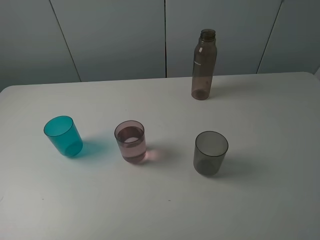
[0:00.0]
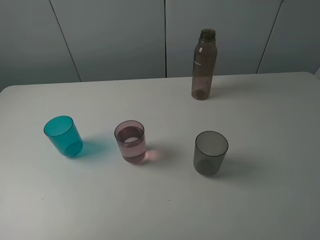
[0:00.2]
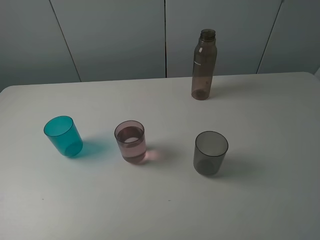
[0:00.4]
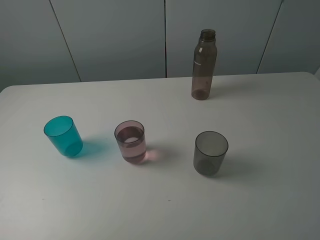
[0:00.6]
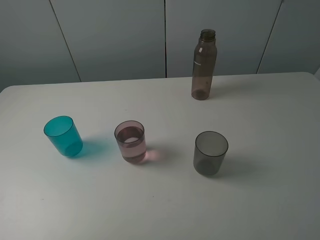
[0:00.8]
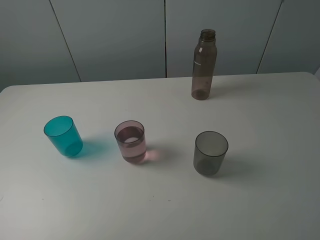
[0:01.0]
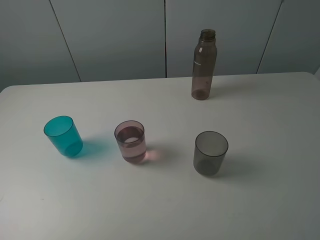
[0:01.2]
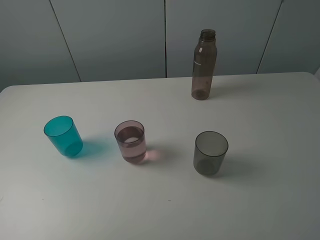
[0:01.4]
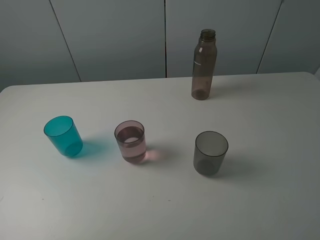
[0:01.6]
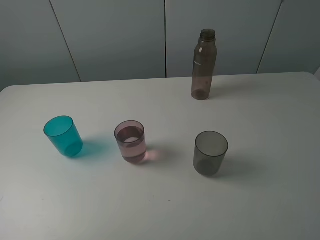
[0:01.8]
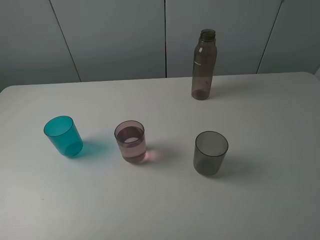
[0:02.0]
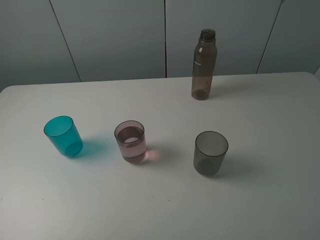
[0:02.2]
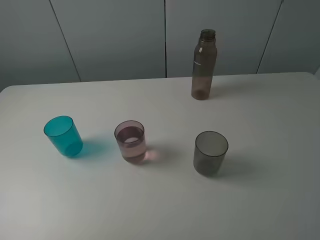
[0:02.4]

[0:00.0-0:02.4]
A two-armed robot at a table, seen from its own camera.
Task of the whole recording: pick up the bottle filled with water and pour water into the middle cup of the three cups.
0:01.2 to 0:02.4: The two grippers keep their place.

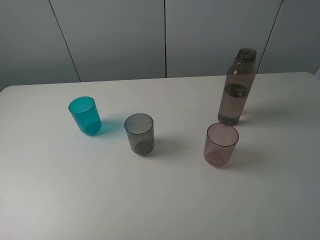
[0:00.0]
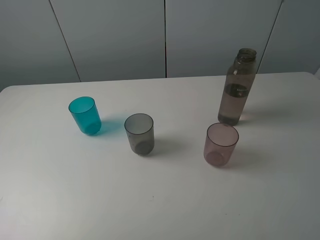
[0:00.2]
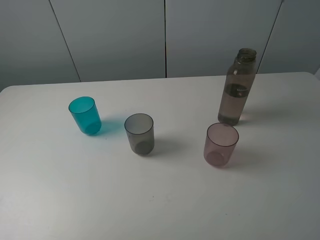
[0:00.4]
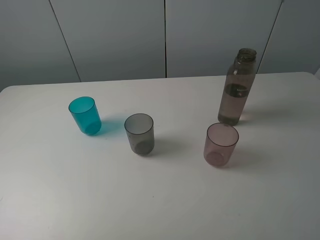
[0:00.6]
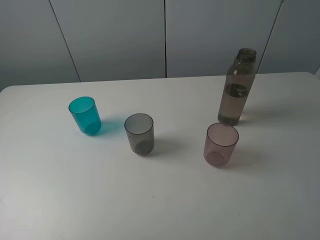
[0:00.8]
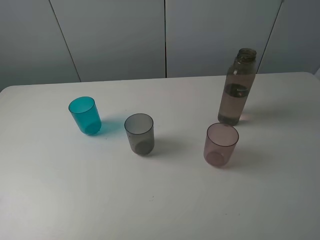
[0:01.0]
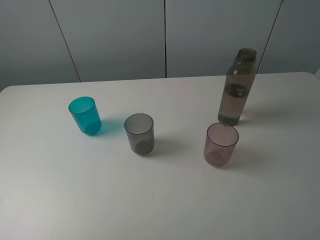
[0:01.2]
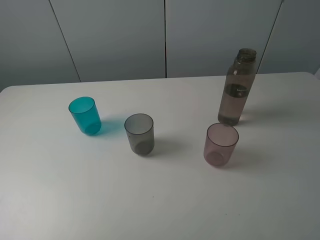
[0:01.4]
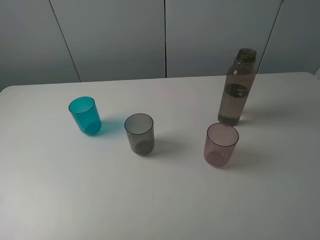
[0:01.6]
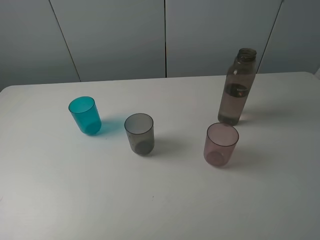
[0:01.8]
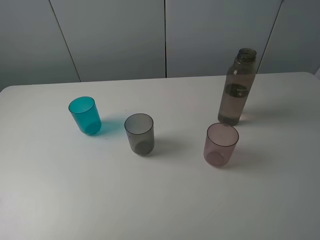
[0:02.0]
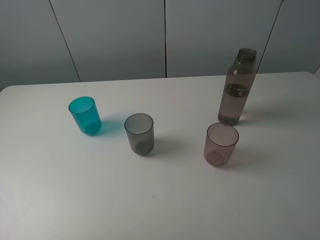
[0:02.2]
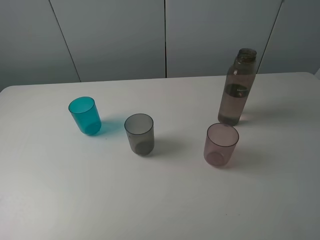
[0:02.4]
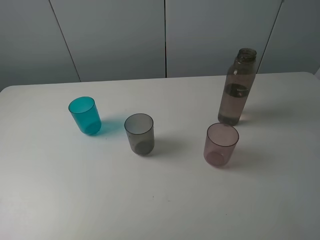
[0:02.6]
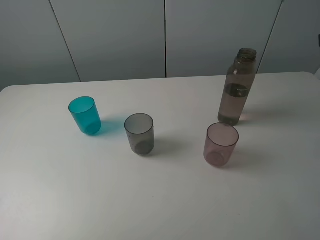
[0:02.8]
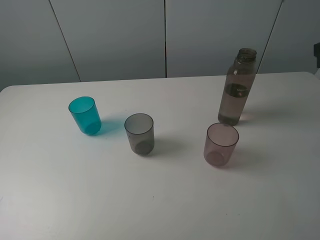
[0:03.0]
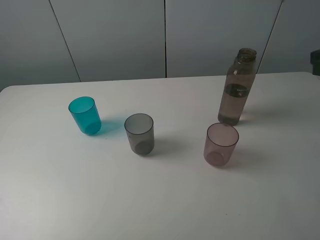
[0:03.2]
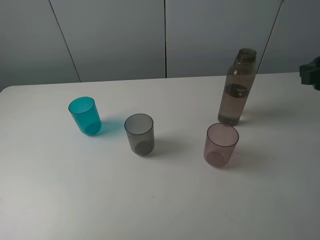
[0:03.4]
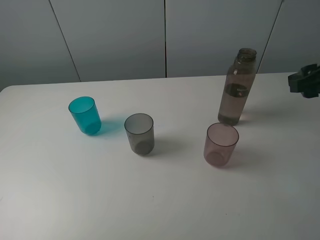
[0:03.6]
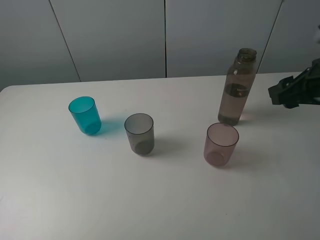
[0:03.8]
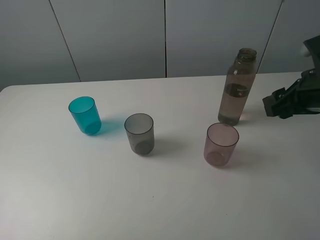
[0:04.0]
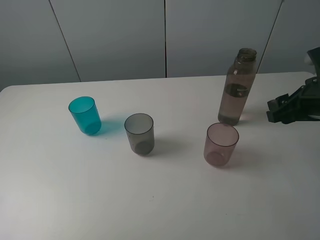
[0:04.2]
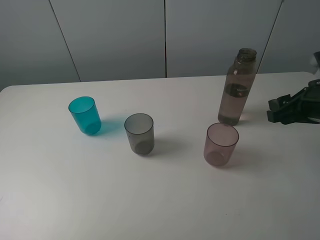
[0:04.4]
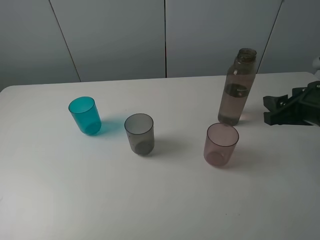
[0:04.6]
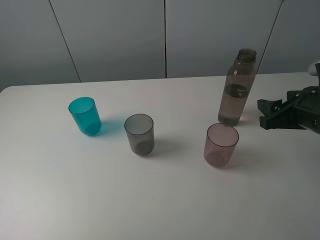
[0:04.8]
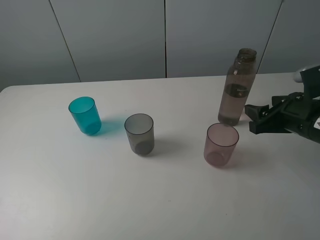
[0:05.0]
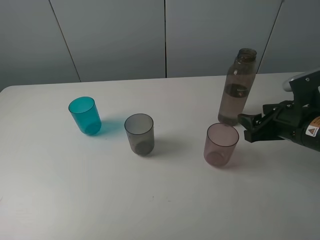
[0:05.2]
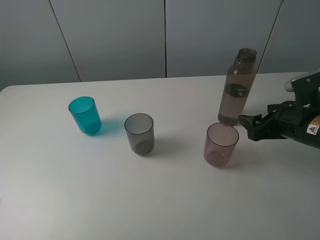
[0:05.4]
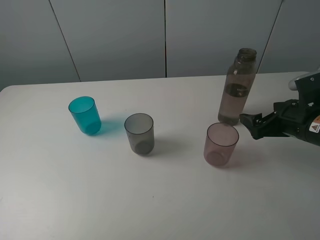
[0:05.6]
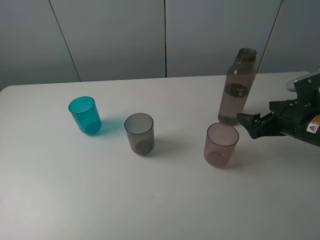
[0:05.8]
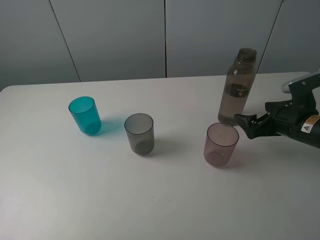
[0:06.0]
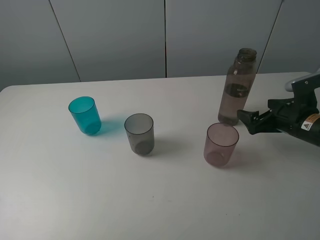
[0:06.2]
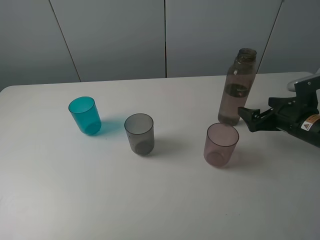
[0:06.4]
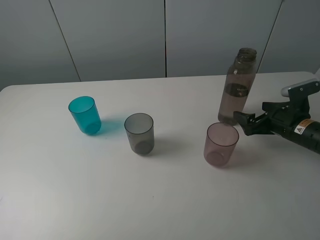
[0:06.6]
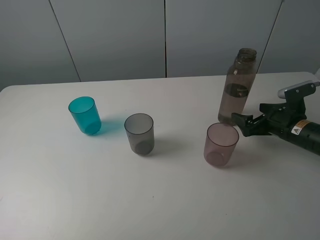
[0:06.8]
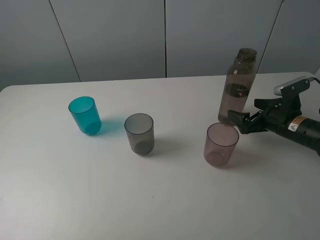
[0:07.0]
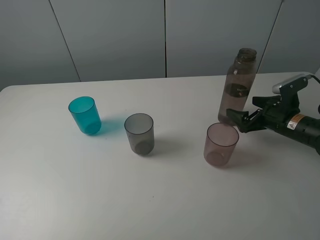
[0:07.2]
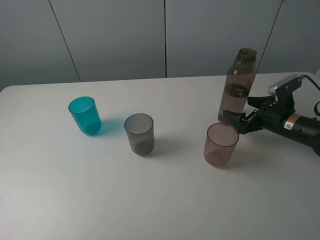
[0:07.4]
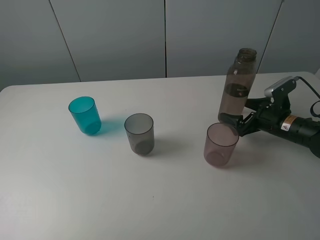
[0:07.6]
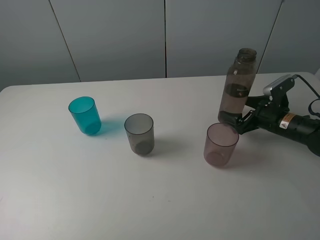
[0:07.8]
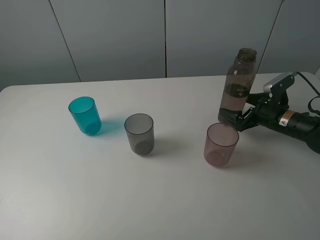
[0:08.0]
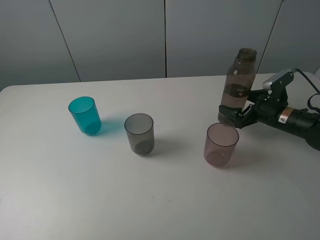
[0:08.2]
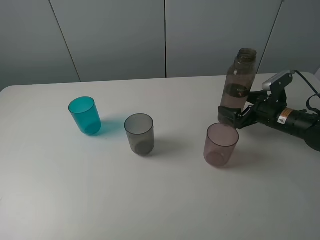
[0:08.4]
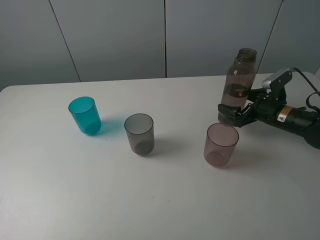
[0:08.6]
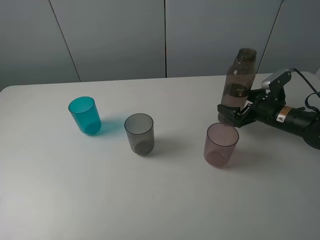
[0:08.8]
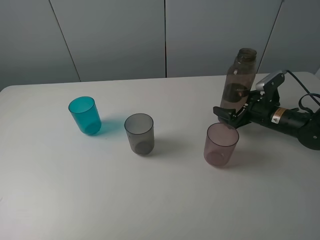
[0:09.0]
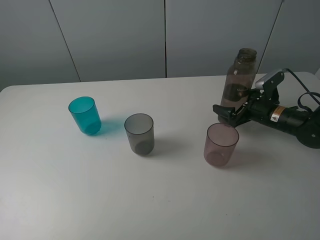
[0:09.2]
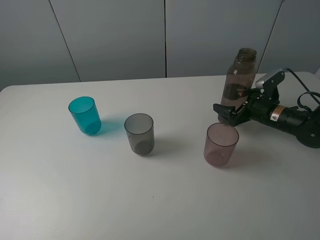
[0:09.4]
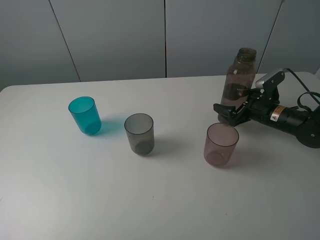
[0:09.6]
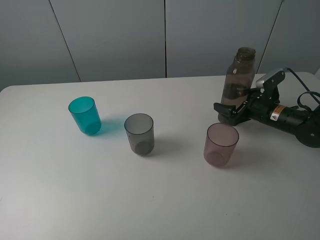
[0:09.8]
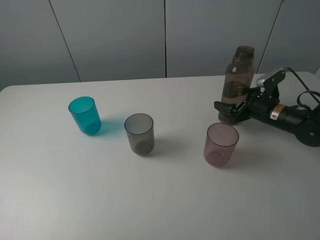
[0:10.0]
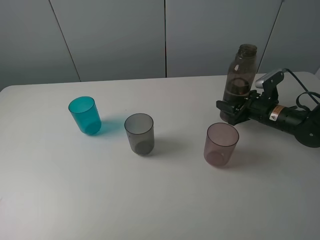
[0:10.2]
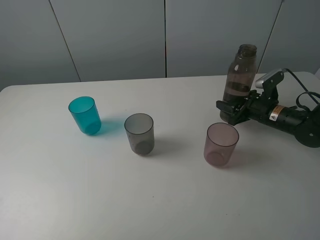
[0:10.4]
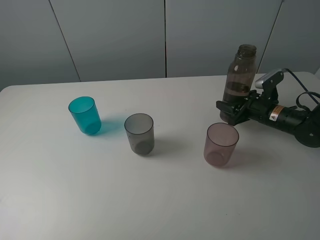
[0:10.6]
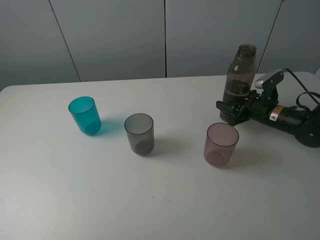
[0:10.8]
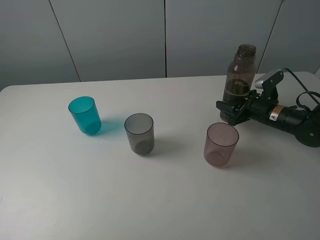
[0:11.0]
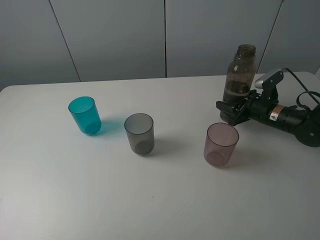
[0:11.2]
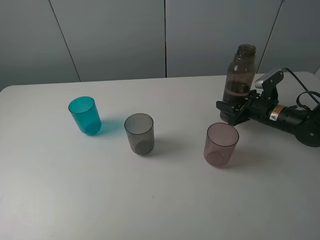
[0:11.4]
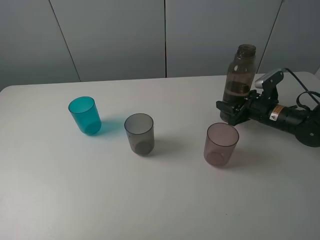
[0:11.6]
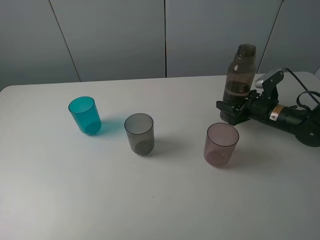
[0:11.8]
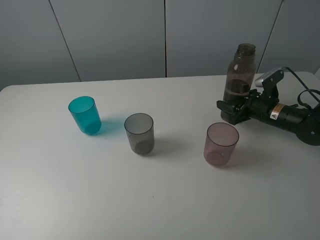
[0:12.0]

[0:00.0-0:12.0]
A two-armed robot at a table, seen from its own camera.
Task of the whole recording: pick up the bottle filled with water and pour water into the middle cup of the three cups.
Step, 0:00.0 to 0:10.2: Grasp the transparent bottle with the right gripper.
0:03.0 to 0:04.4: The right gripper shifts approximately 10 cm downward.
0:04.4 to 0:06.0: The right gripper moves downward, some 10 cm, and opens.
0:06.0 to 0:07.6: The right gripper travels forward and downward by some 10 cm.
0:07.6 to 0:09.0: The grippers stay close to where they were, moving slightly.
0:09.0 to 0:10.4: The right gripper closes its fingers.
0:10.4 to 0:12.0: The two grippers keep their place.

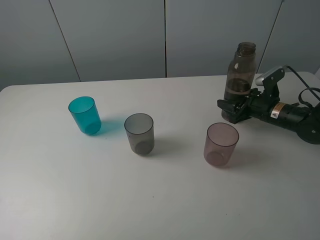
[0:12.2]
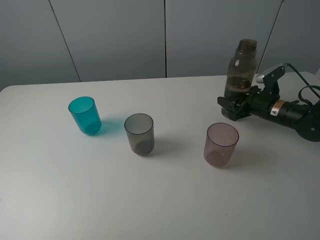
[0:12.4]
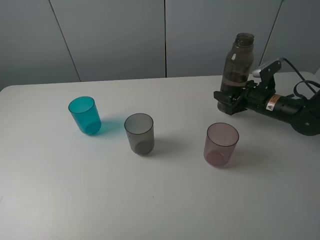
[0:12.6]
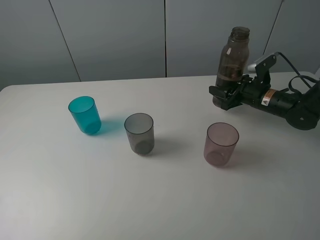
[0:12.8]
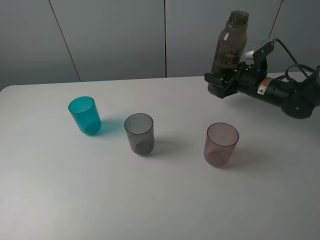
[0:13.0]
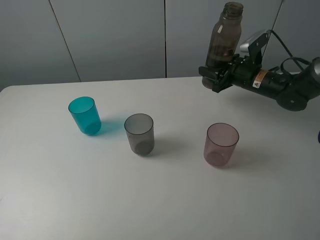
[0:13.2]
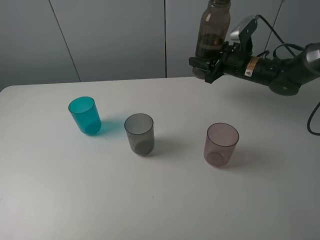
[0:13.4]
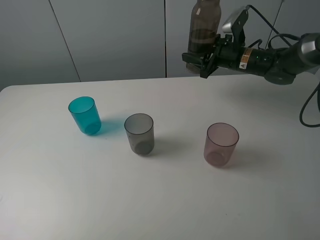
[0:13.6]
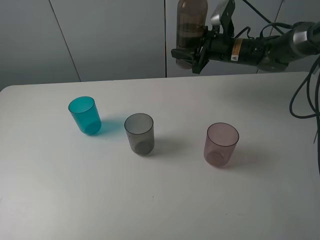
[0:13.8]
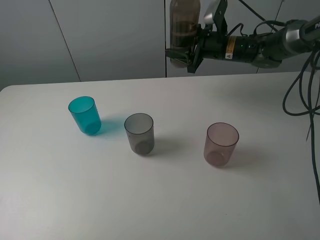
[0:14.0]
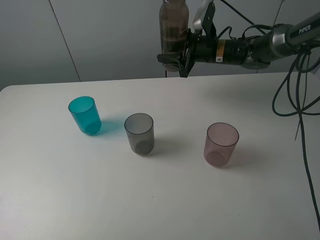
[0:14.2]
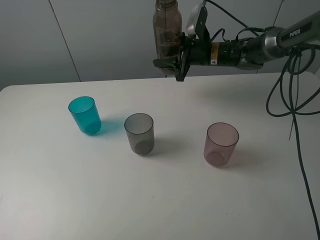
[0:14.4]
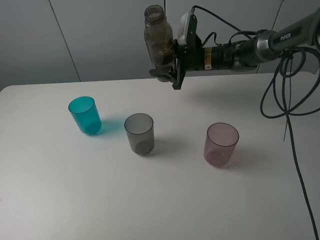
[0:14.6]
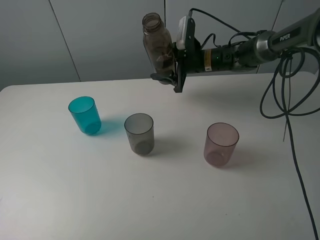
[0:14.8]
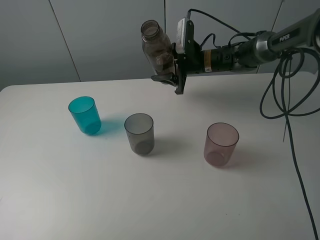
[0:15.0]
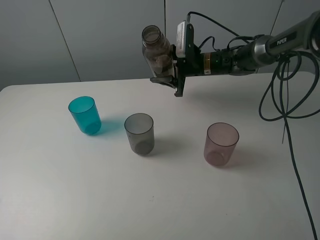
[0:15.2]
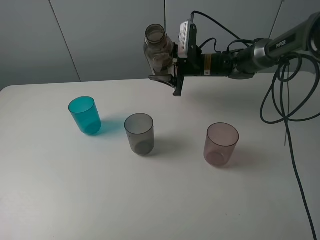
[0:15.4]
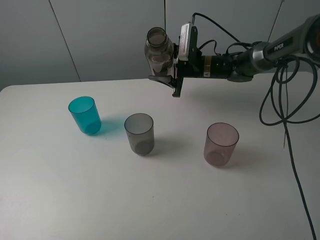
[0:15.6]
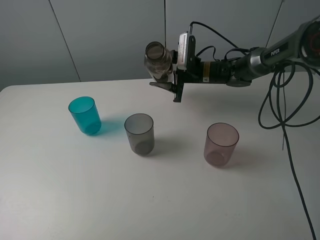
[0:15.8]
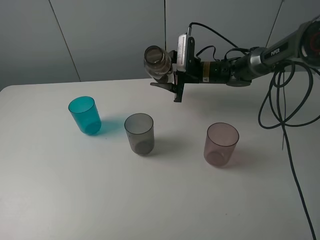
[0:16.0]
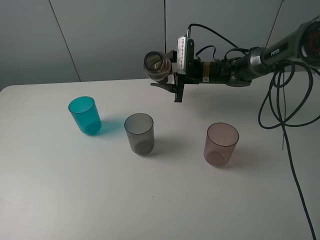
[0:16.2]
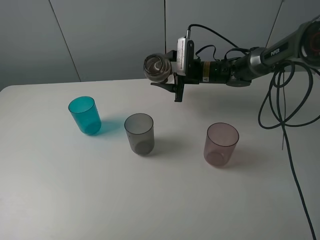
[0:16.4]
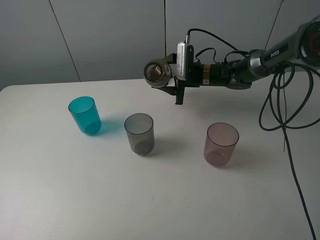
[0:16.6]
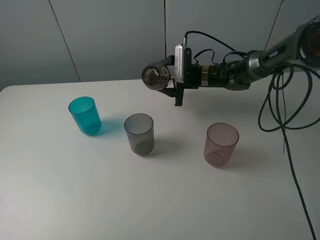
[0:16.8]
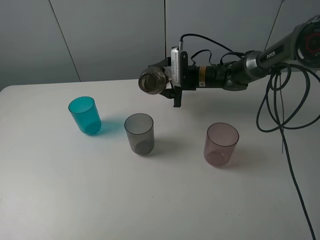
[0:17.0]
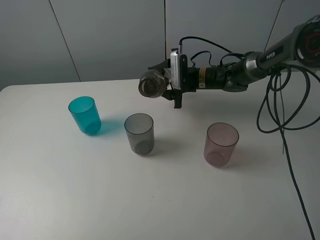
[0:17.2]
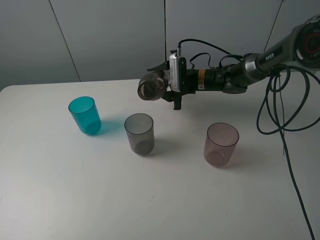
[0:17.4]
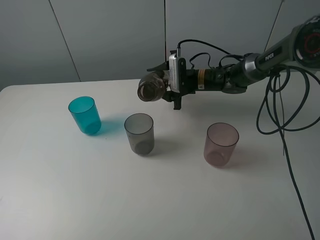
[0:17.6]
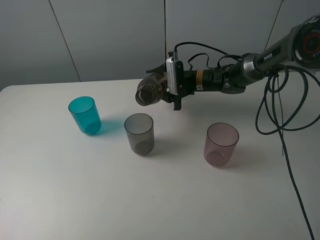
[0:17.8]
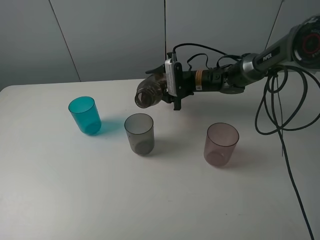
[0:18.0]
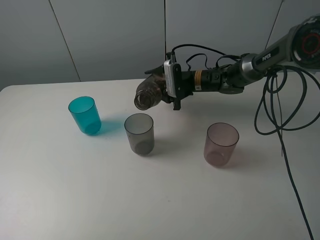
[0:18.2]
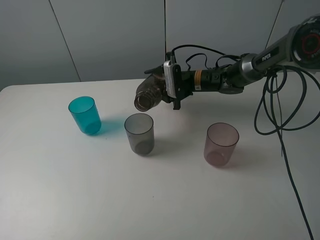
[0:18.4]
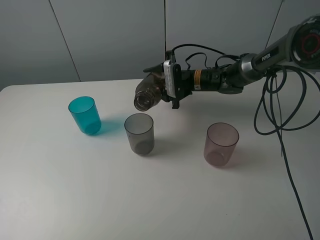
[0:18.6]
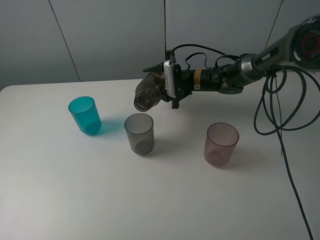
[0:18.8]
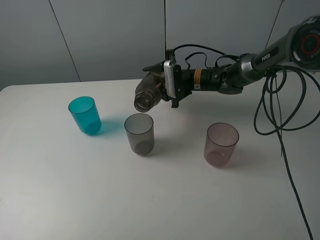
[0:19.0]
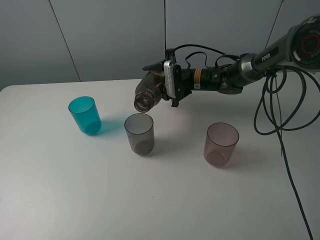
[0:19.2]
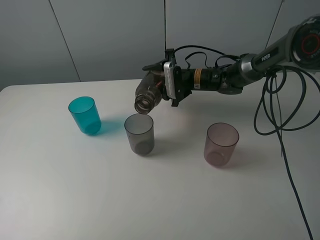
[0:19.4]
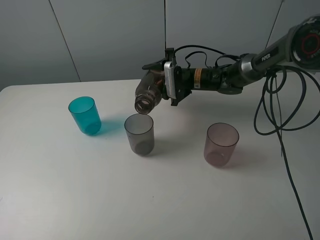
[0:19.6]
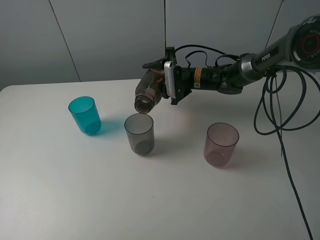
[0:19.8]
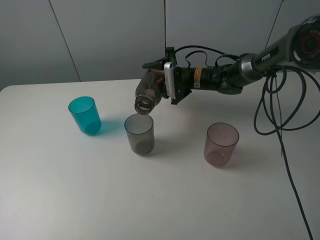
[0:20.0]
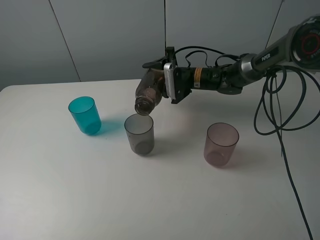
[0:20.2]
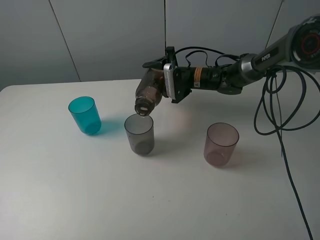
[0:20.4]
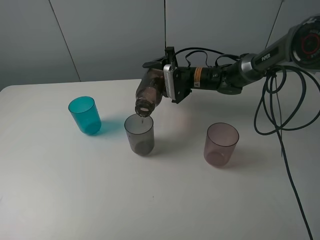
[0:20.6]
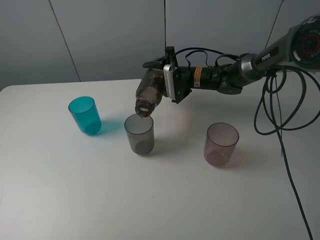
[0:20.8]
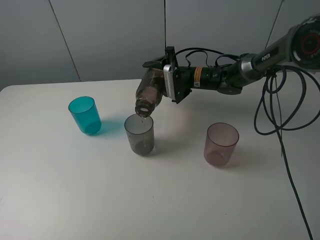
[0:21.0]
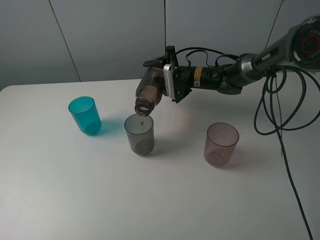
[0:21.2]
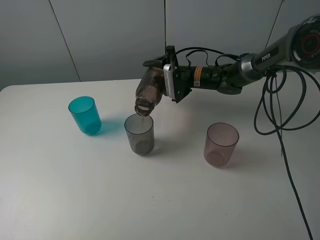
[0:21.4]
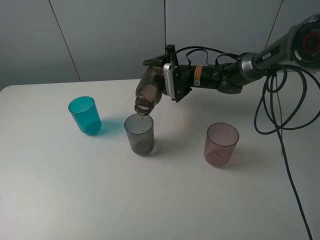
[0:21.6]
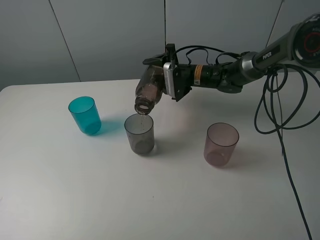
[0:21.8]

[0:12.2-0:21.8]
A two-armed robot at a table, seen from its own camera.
Task of the whole recording: pick up the bottle filled with water and pour water into the middle cup of the three cups.
Step, 0:12.2 to 0:19.8: Pour water from transparent bottle to grey cup with the right gripper.
0:12.2 to 0:13.8: The right gripper travels upward, to the left and forward by roughly 20 cm.
0:13.8 to 0:15.4: The right gripper is displaced to the left by roughly 5 cm.
0:17.0 to 0:18.6: The grippers stay close to where they were, moving slightly.
0:18.6 to 0:20.2: The grippers move only a little.
0:20.2 to 0:21.8: Both grippers stay about where they are.
